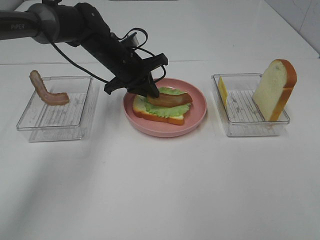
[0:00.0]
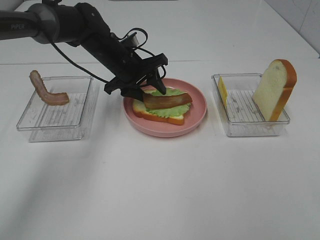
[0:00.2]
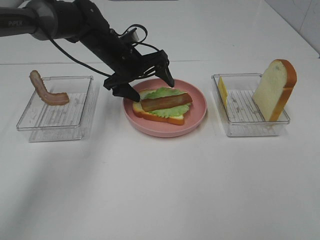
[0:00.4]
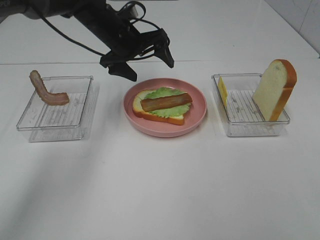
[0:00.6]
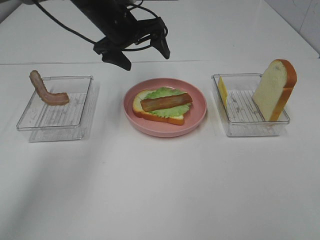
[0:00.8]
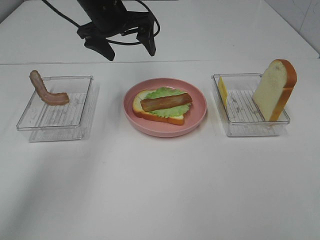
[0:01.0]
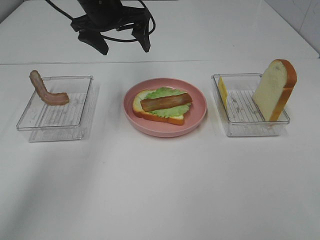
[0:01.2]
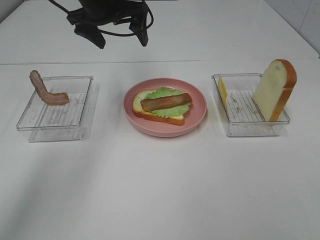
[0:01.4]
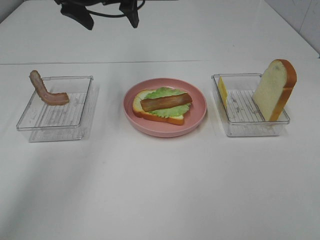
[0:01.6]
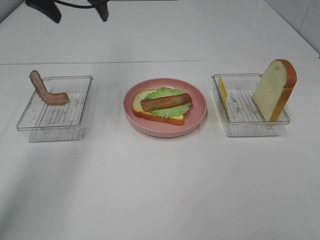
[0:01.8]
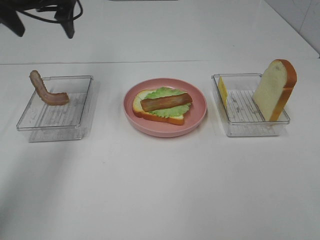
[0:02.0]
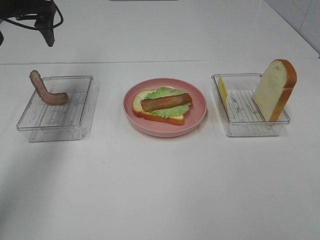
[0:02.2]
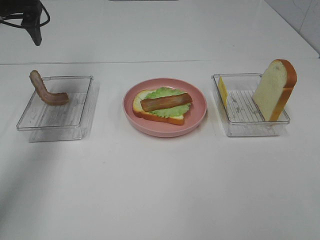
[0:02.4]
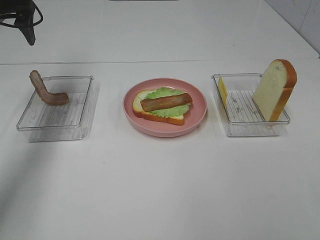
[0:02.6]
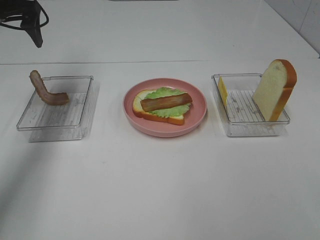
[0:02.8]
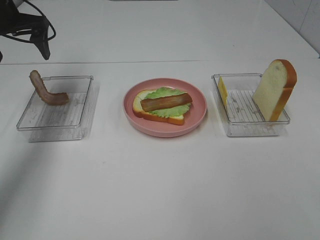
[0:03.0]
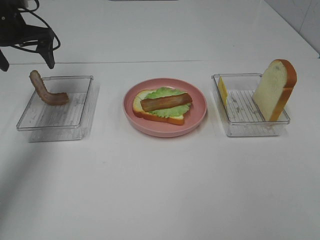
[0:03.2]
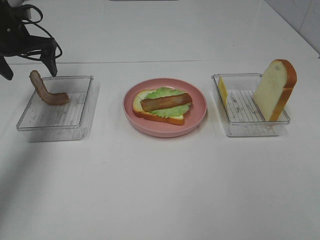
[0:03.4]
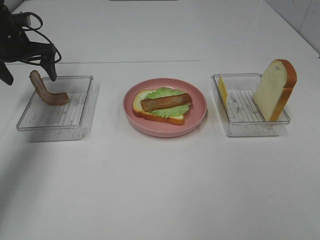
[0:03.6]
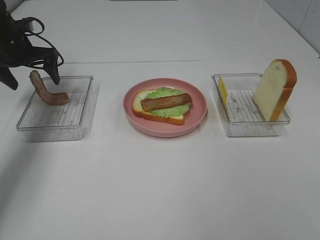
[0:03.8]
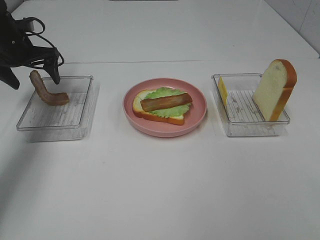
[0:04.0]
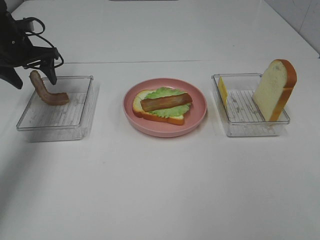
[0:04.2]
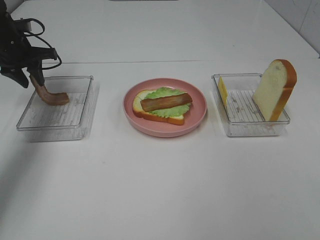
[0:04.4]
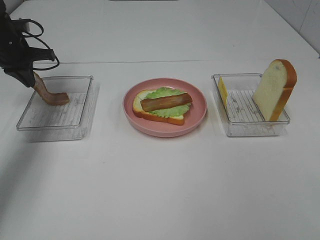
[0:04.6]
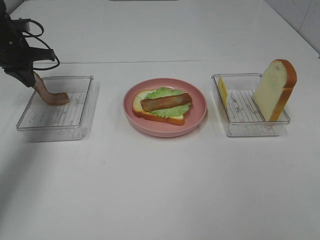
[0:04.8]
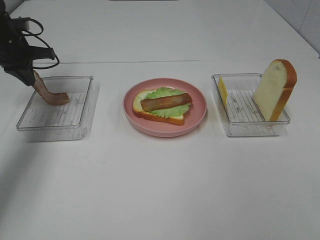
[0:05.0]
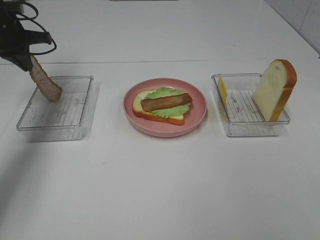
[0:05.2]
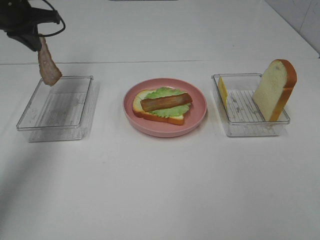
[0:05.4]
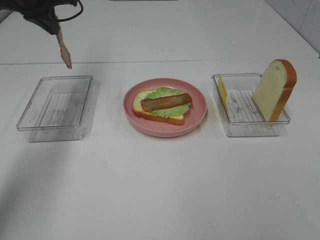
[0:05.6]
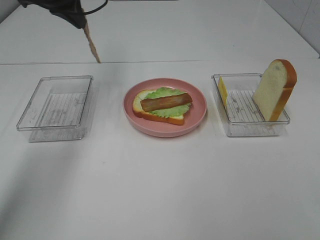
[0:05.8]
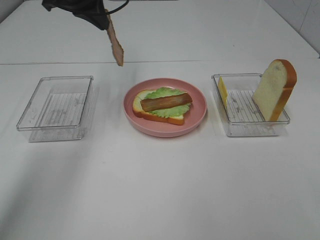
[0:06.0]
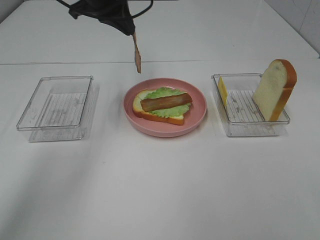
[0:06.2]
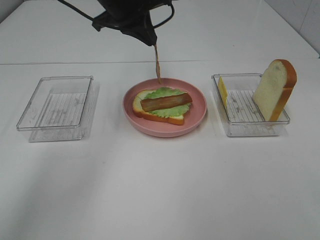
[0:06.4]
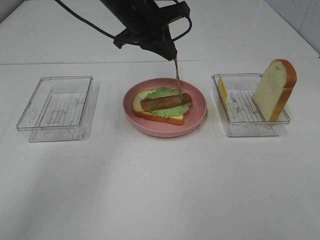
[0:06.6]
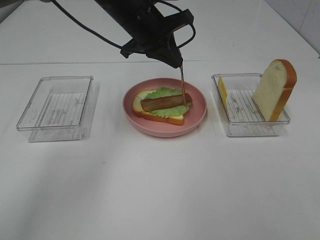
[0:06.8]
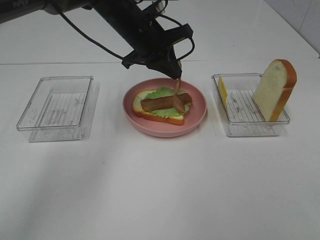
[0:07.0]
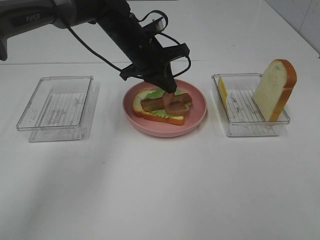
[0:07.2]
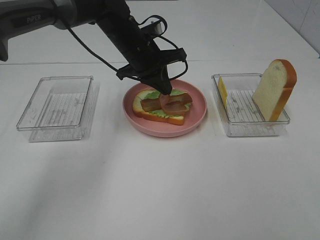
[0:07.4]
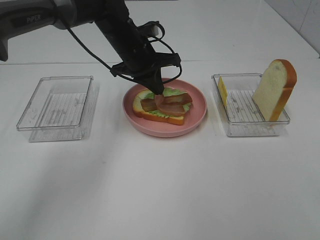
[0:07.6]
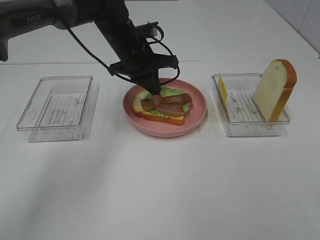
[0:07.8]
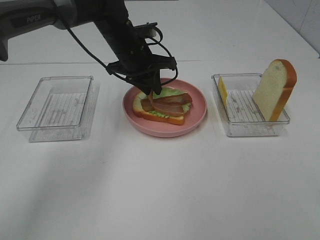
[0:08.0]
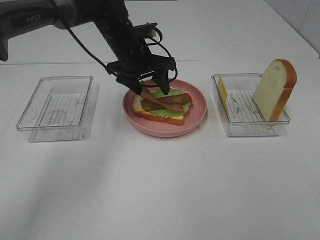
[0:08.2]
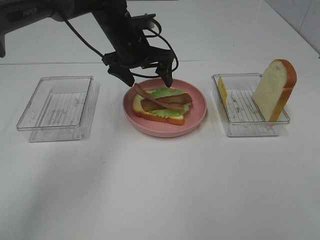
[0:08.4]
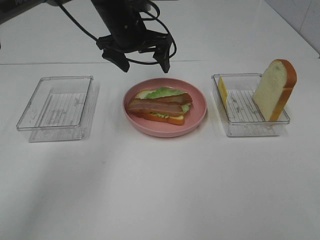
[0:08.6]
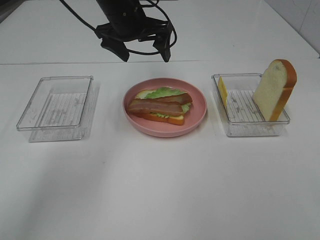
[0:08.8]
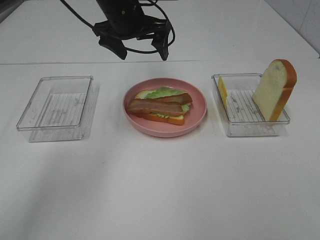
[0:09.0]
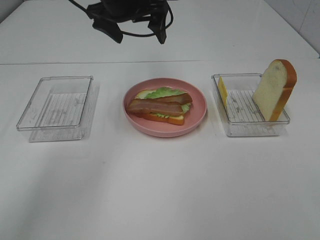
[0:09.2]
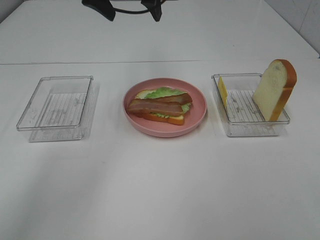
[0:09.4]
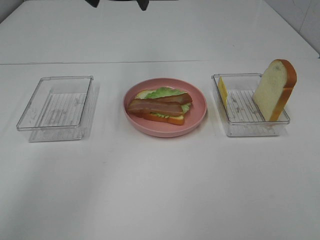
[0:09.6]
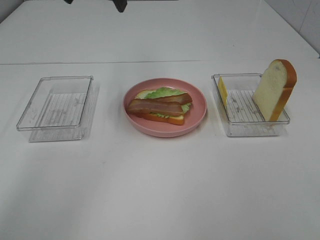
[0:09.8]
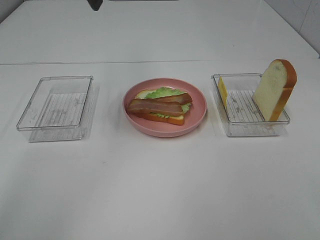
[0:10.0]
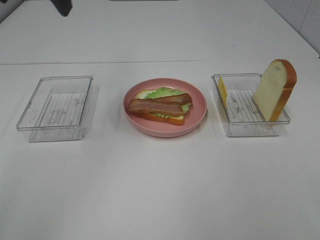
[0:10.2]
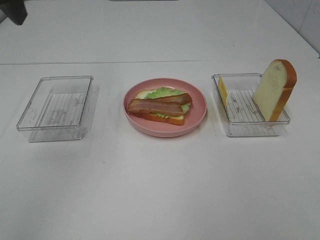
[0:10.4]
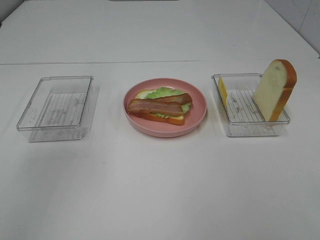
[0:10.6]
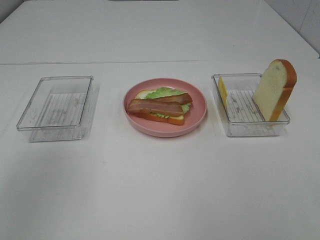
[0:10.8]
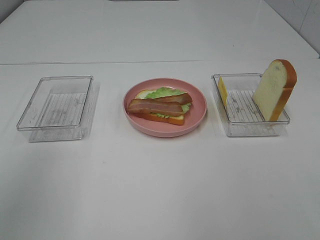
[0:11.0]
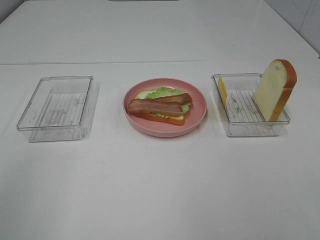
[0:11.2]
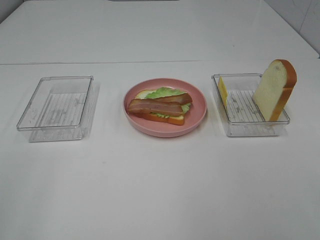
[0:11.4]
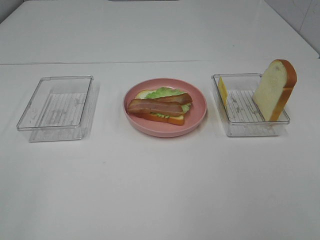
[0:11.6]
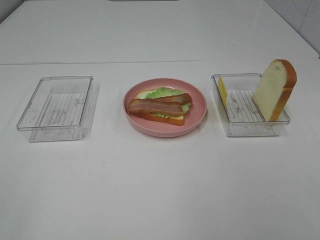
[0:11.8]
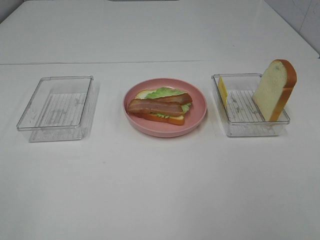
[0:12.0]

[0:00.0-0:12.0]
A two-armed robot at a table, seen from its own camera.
Task of the whole recording: Make sandwiches.
Step, 0:00.6 to 0:05.0: Left hand:grab the bacon.
Step, 0:05.2 to 0:08.8: Left hand:place bacon on bacon.
0:00.0 to 0:01.6: The left gripper travels upward by some 20 cm, and opens.
0:01.6 to 0:03.0: The left gripper travels to the left by about 15 cm.
0:03.0 to 0:04.4: The left gripper travels downward by approximately 10 cm, and closes.
0:04.4 to 0:06.0: The left gripper shifts about 20 cm to the right and upward, and closes its fingers.
0:06.0 to 0:07.6: The left gripper heads downward and to the right, covering approximately 15 cm.
0:07.6 to 0:09.0: The left gripper shifts some 10 cm upward, and opens its fingers.
0:09.0 to 0:10.4: The left gripper shifts some 30 cm backward, to the left and upward.
0:10.4 to 0:12.0: The left gripper heads backward, covering roughly 30 cm.

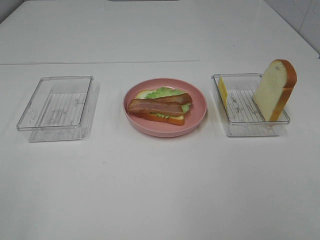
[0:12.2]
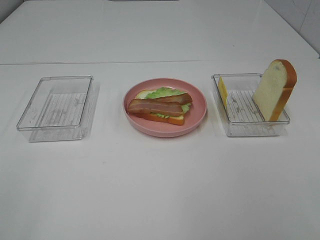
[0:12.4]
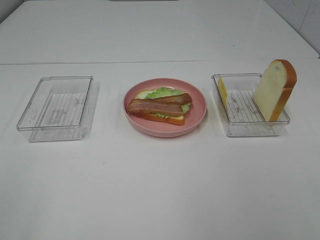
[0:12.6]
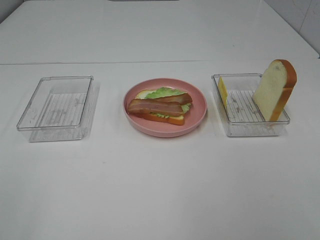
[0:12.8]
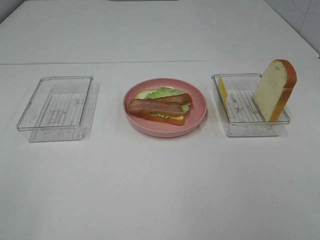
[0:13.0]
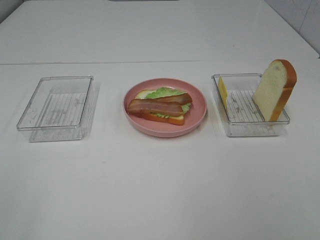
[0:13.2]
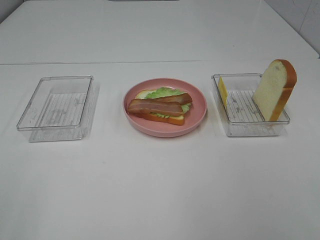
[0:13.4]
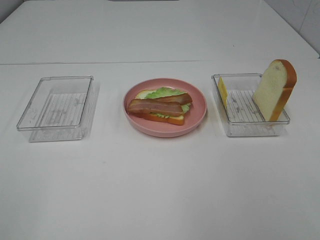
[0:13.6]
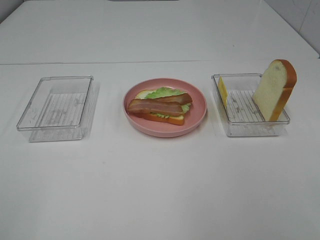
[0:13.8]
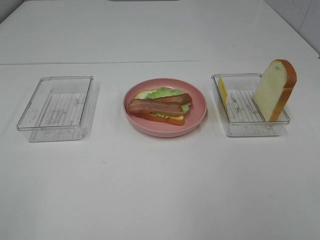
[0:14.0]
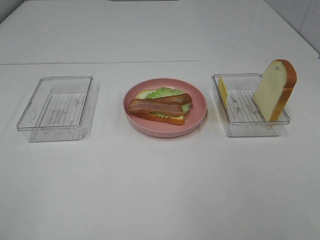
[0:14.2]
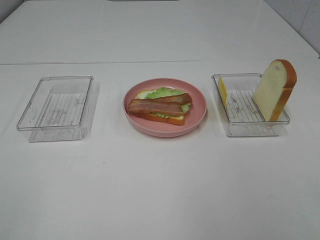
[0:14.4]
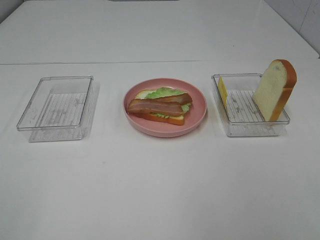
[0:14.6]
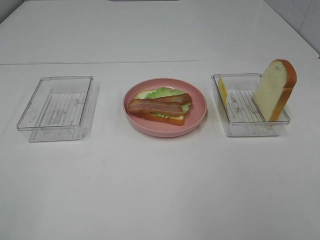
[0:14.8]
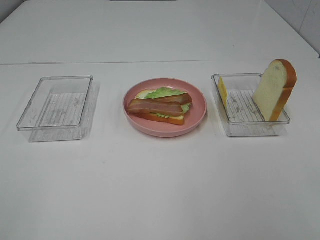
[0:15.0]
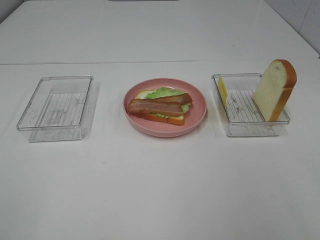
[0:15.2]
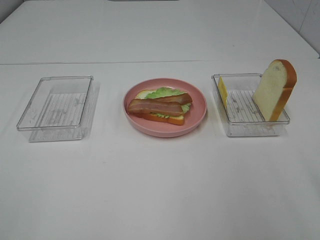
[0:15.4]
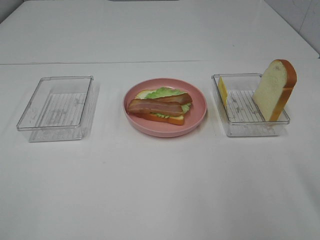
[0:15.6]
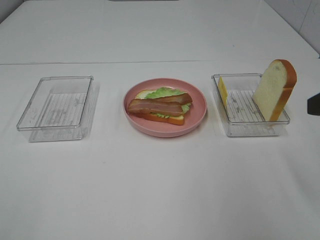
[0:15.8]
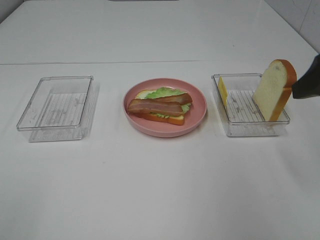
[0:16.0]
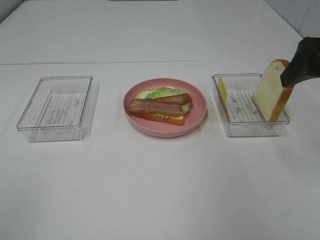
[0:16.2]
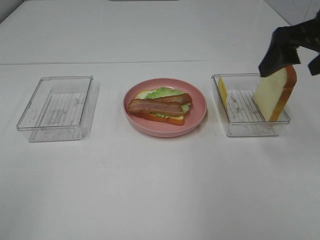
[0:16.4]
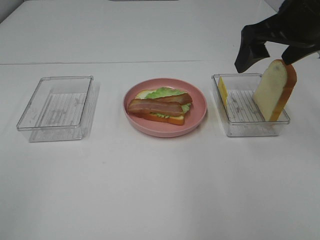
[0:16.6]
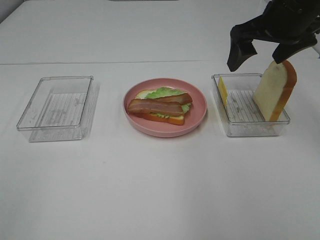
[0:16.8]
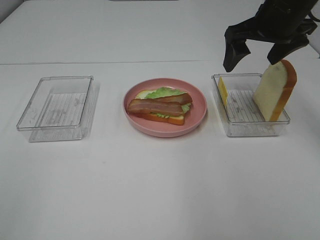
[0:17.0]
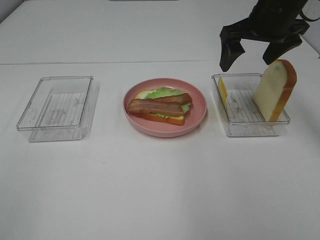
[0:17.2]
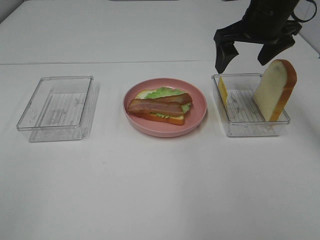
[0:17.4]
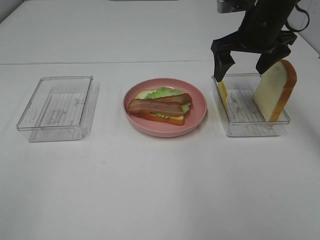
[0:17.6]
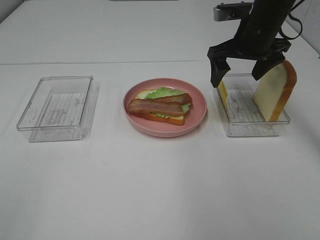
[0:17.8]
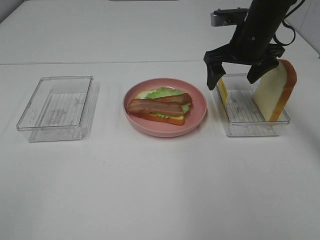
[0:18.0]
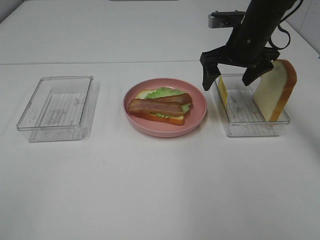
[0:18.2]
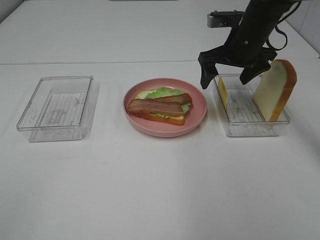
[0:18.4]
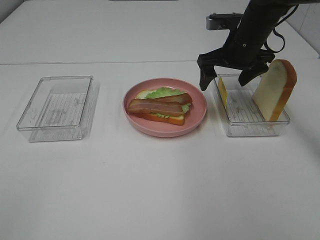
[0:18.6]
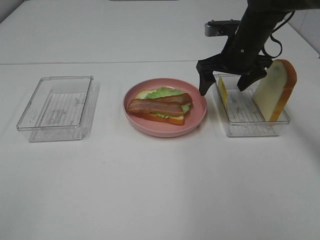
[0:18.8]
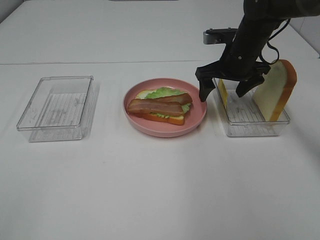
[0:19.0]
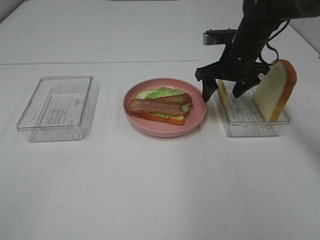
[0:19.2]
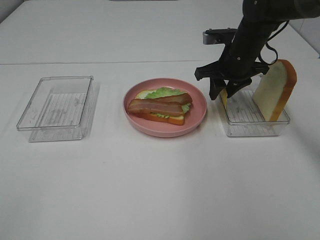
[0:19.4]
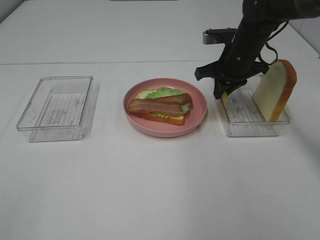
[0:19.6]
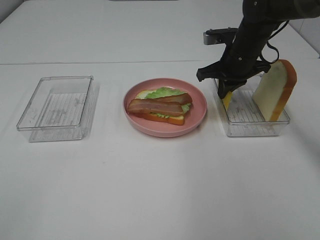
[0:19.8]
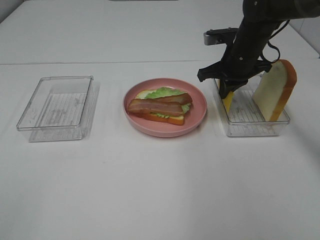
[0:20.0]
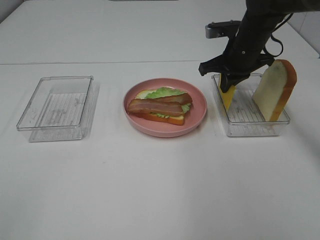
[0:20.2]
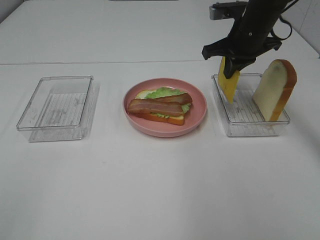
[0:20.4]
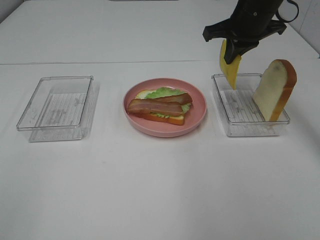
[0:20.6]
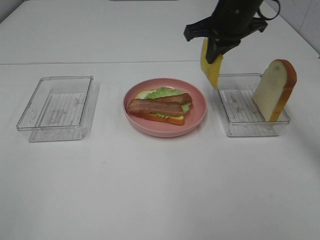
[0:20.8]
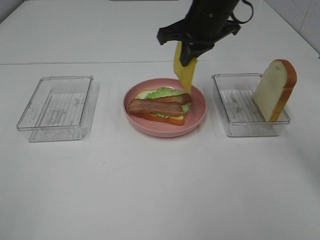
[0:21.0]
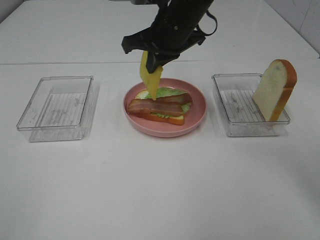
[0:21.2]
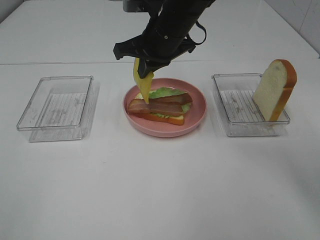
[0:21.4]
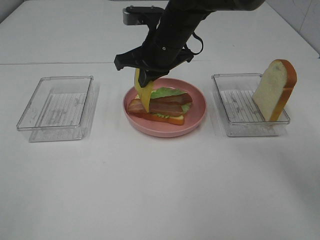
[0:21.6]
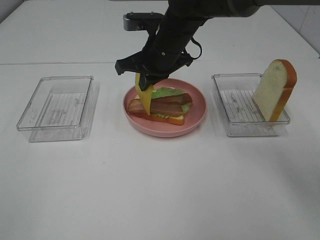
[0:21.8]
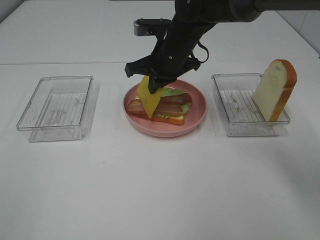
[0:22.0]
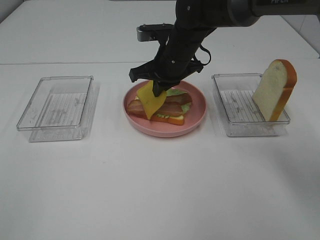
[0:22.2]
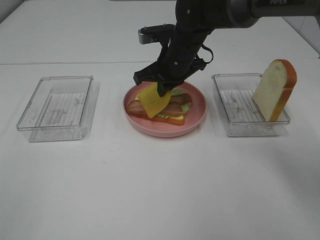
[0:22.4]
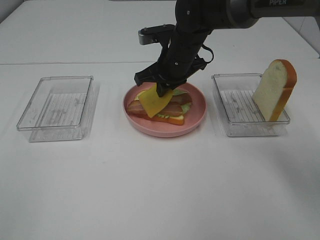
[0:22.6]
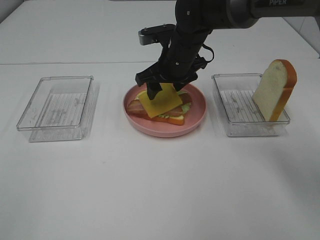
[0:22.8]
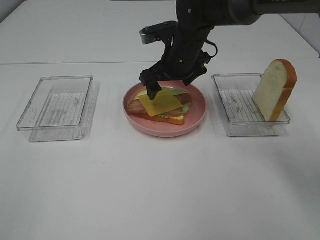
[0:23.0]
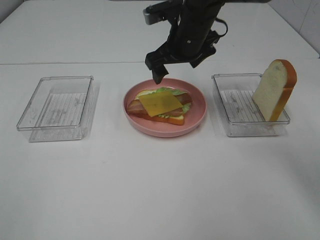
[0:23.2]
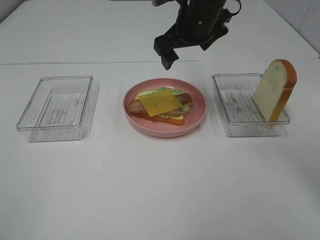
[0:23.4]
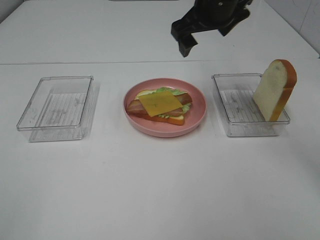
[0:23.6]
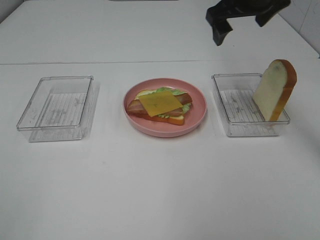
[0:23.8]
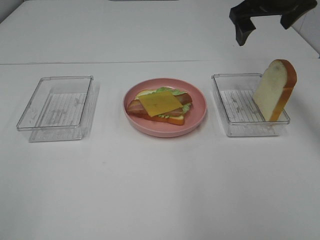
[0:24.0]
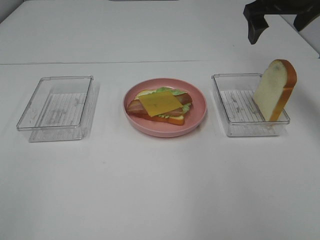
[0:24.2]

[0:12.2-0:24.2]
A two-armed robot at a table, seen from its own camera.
Task of the whole recording: Make sandwiches.
Step, 0:12.2 to 0:20.0: Right hand:grab the cheese slice.
Step, 0:20.2 to 0:22.8: Right hand:place the cheese slice on top of the bacon.
0:15.2 to 0:16.6: The right gripper goes roughly 30 cm forward.
0:16.6 to 0:18.2: The right gripper goes roughly 15 cm forward and downward.
0:18.2 to 0:19.8: The right gripper closes its fingers.
0:19.8 to 0:21.2: The right gripper shifts approximately 15 cm to the left and upward.
0:21.2 to 0:22.6: The right gripper moves downward, approximately 10 cm.
0:22.6 to 0:24.2: The right gripper is displaced to the right and upward by roughly 25 cm, and opens its fingers.
